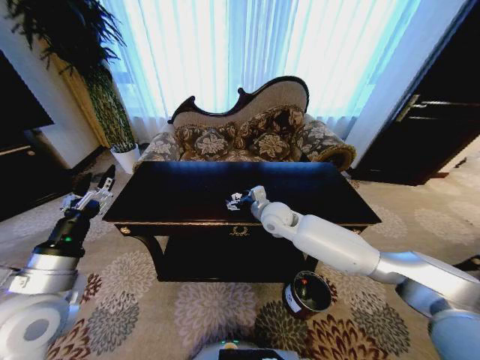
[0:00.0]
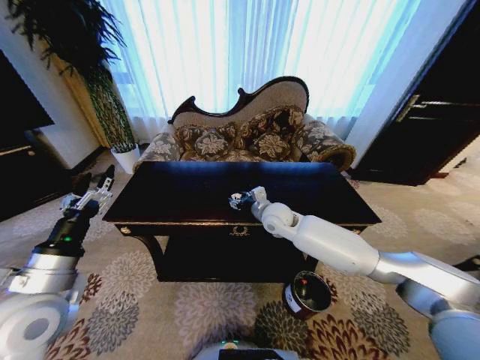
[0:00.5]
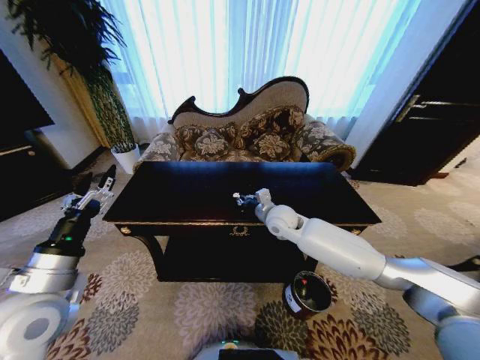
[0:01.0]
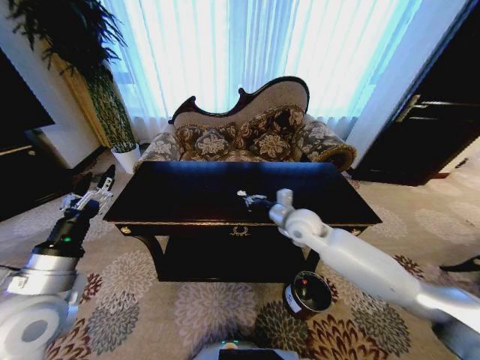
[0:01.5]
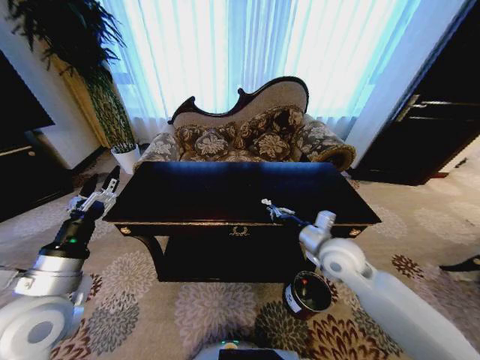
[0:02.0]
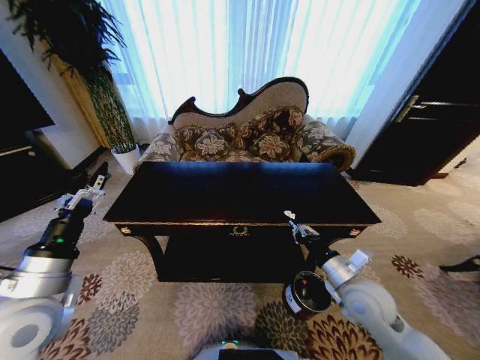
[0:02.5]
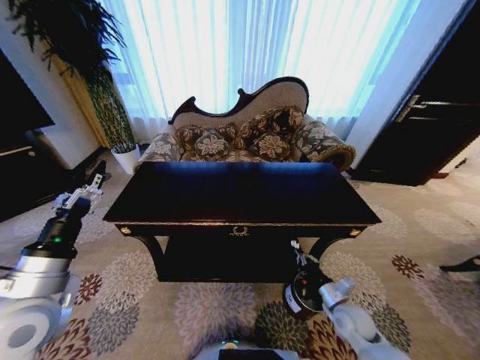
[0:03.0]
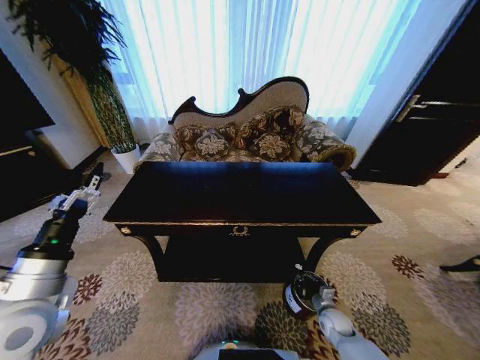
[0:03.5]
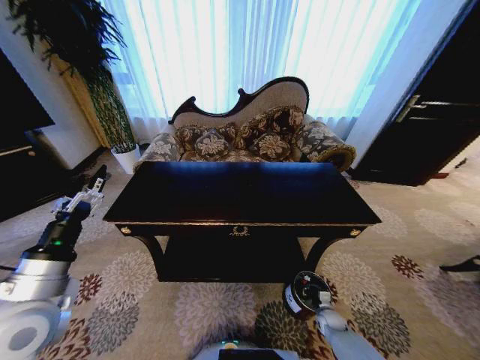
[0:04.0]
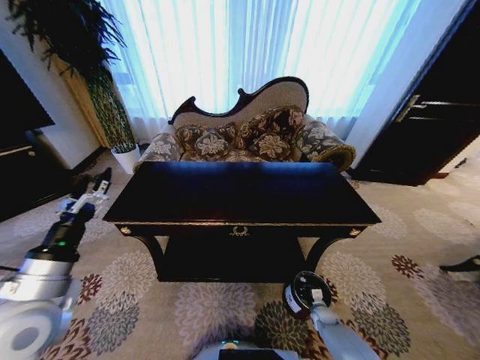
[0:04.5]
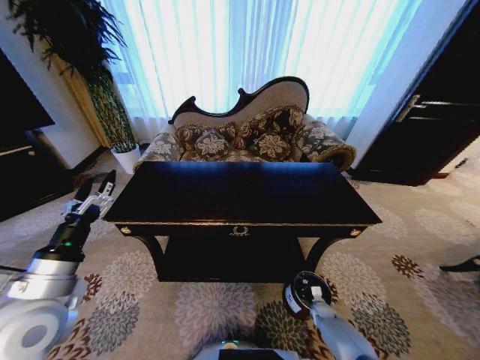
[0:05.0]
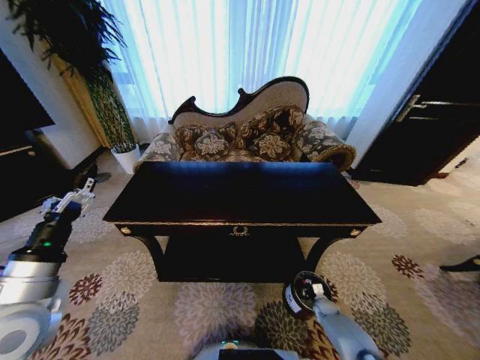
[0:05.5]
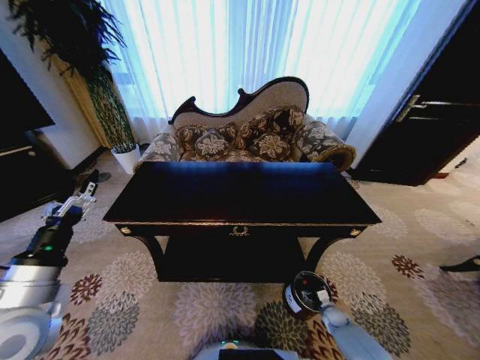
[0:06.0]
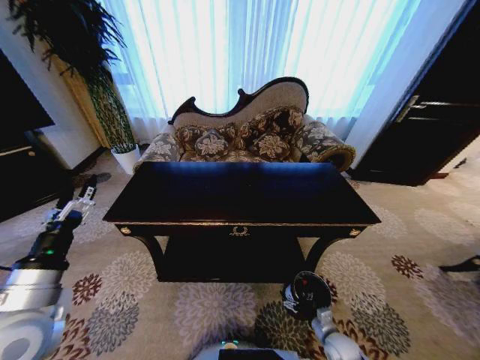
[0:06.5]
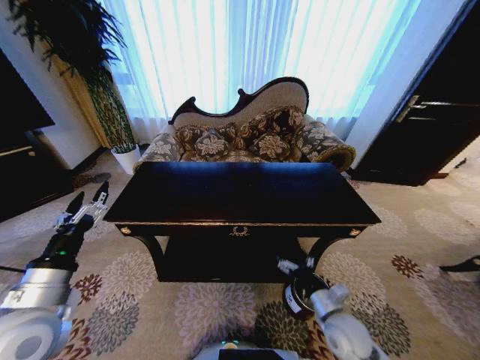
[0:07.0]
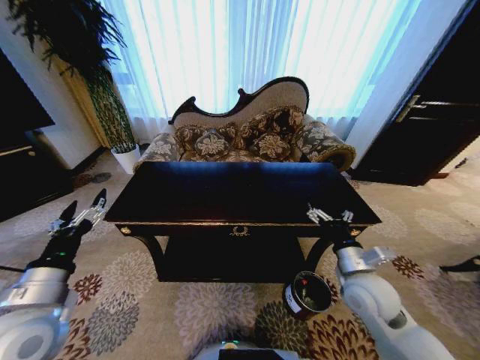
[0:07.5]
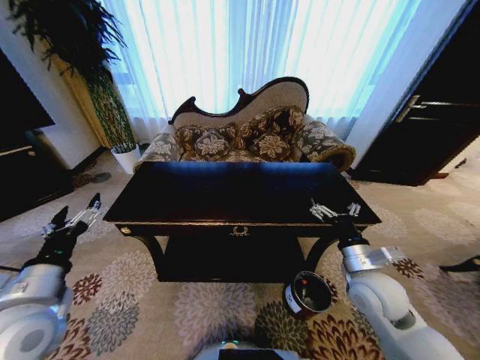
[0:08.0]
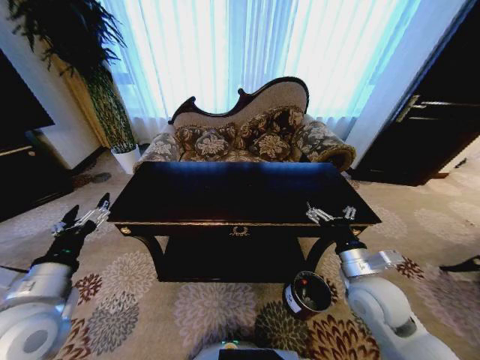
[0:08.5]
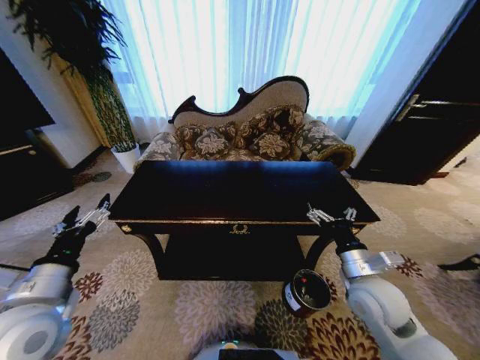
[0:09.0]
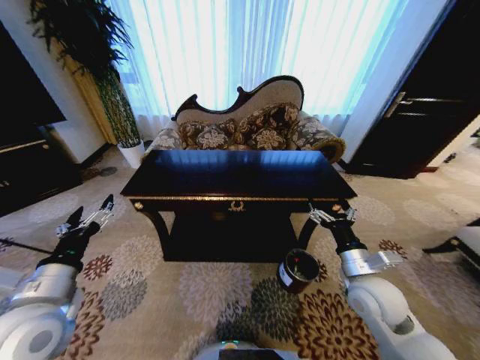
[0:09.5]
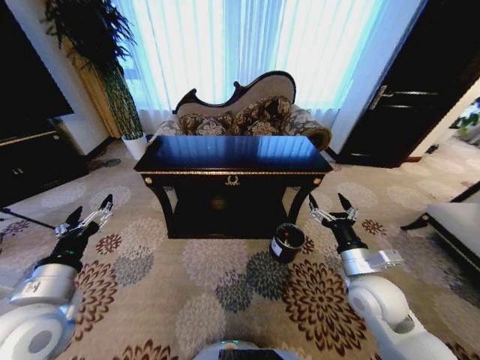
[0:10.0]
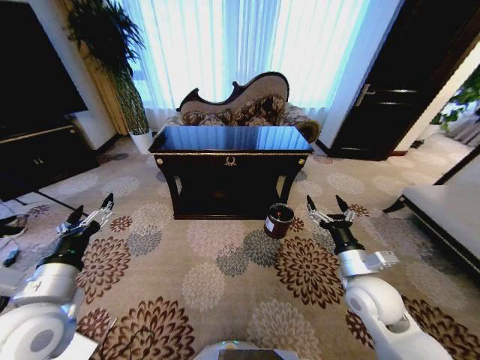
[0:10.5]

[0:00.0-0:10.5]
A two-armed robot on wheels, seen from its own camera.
Task of the whole recording: Move to the front of the table and place the trash on the table into the trash bin.
0:00.0 to 0:02.0: The right gripper travels backward and to the right by approximately 20 cm, and closes.
0:02.0 to 0:04.0: The right gripper goes roughly 40 cm downward.
0:04.0 to 0:06.5: The right gripper is displaced backward and upward by roughly 10 cm, and opens up.
0:06.5 to 0:08.5: The right gripper shifts roughly 30 cm upward.
